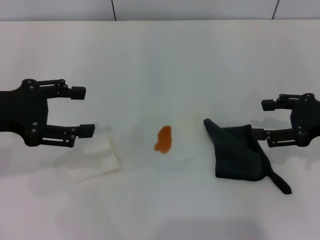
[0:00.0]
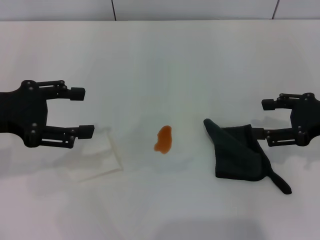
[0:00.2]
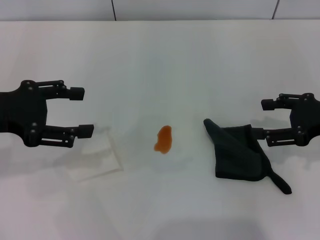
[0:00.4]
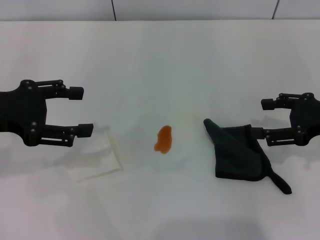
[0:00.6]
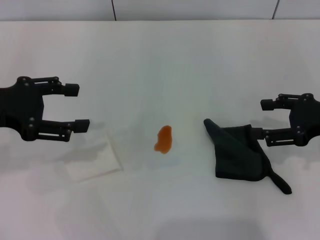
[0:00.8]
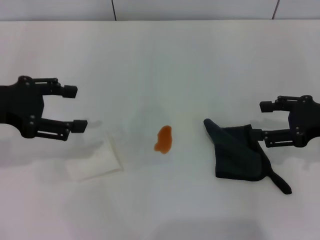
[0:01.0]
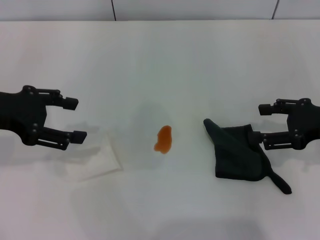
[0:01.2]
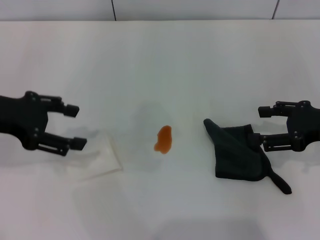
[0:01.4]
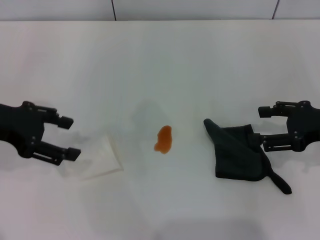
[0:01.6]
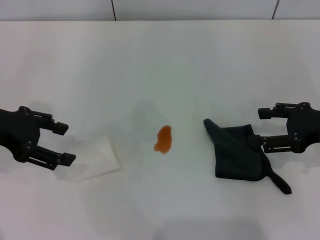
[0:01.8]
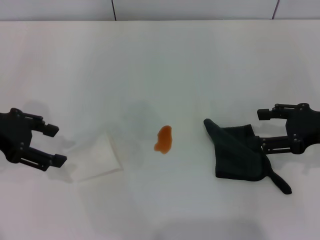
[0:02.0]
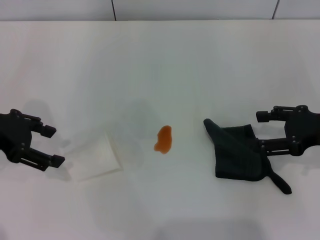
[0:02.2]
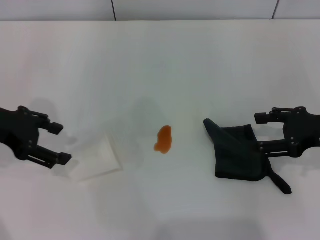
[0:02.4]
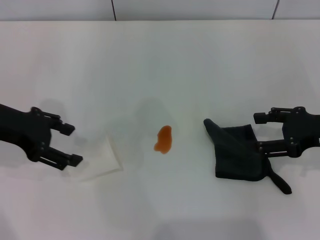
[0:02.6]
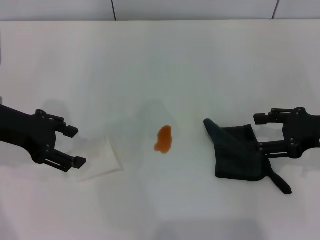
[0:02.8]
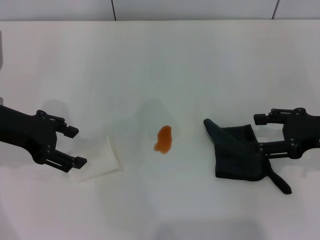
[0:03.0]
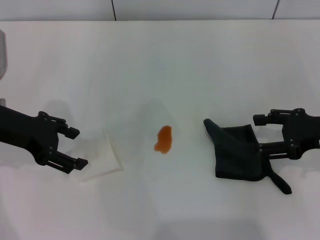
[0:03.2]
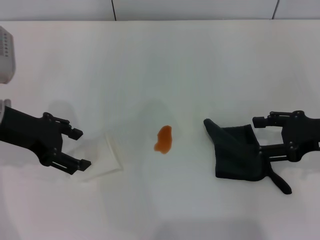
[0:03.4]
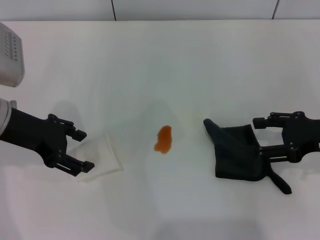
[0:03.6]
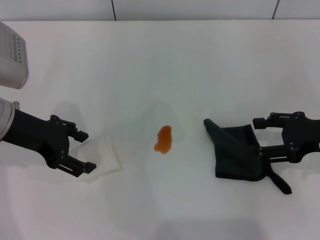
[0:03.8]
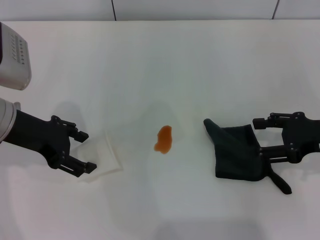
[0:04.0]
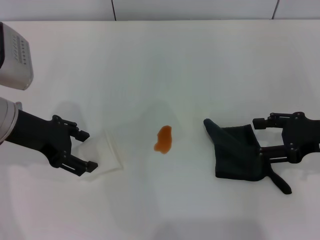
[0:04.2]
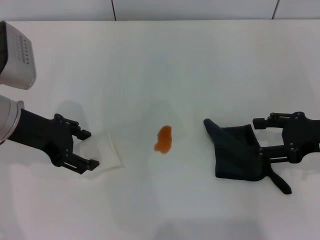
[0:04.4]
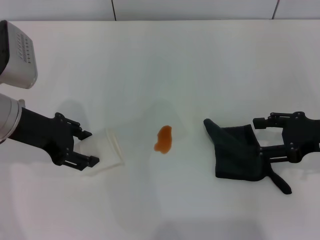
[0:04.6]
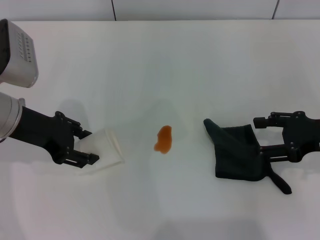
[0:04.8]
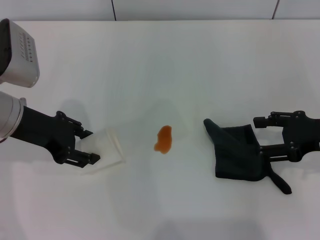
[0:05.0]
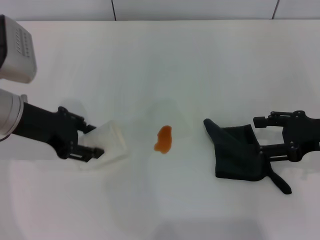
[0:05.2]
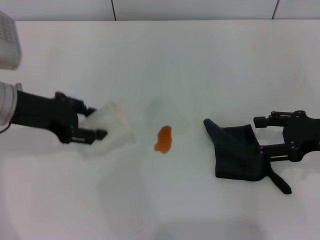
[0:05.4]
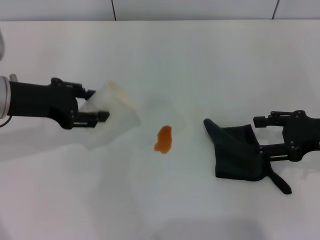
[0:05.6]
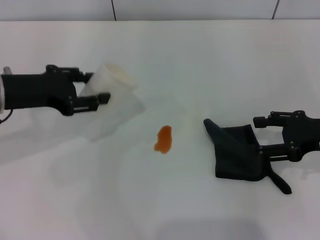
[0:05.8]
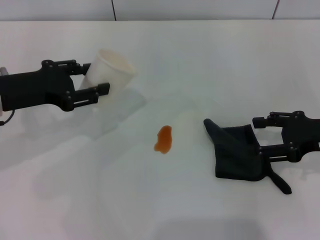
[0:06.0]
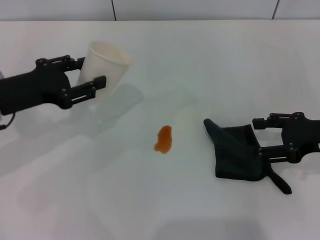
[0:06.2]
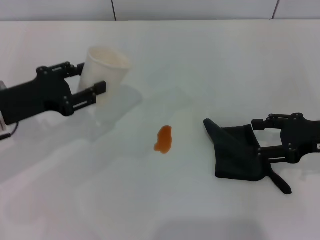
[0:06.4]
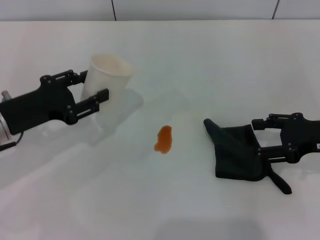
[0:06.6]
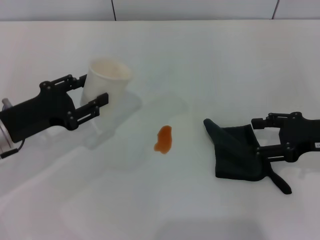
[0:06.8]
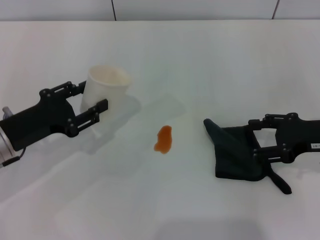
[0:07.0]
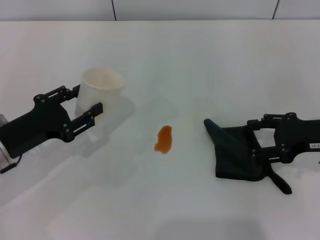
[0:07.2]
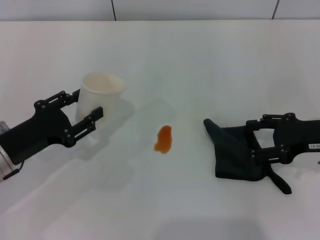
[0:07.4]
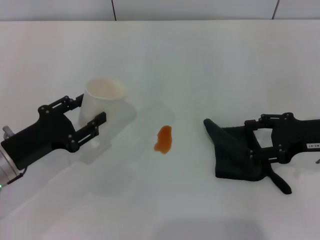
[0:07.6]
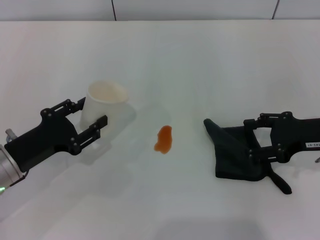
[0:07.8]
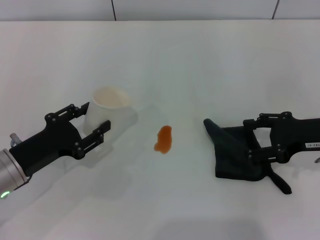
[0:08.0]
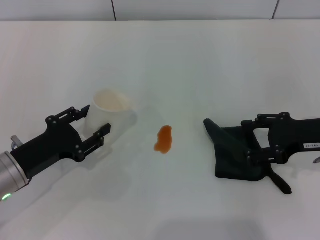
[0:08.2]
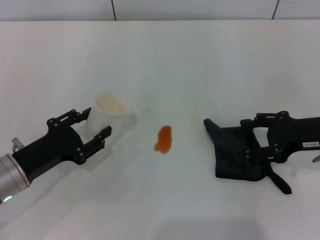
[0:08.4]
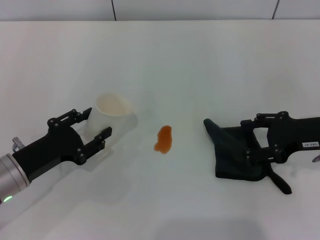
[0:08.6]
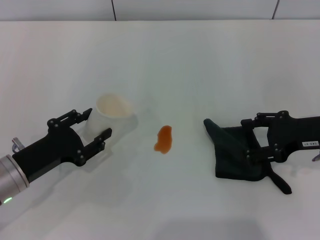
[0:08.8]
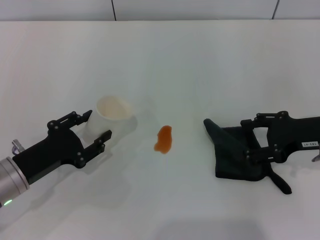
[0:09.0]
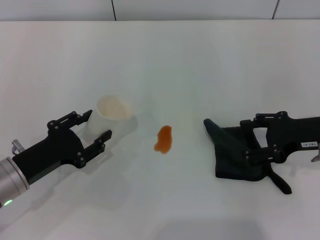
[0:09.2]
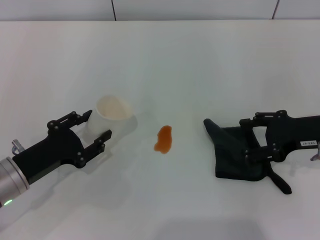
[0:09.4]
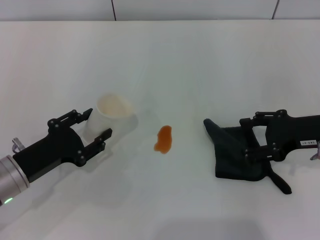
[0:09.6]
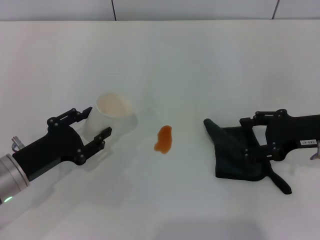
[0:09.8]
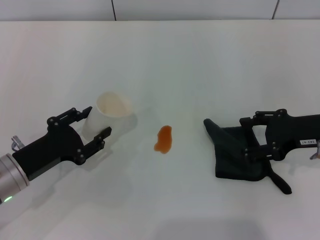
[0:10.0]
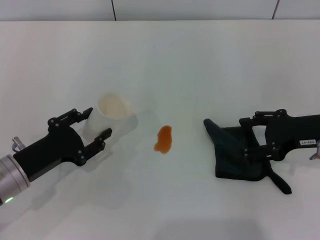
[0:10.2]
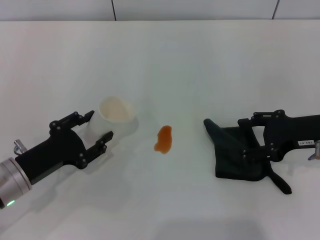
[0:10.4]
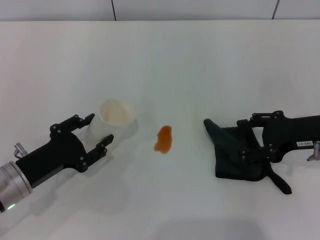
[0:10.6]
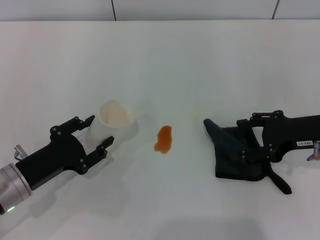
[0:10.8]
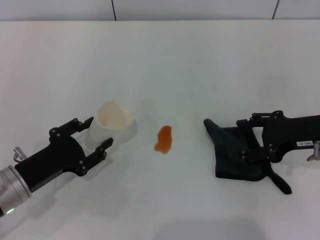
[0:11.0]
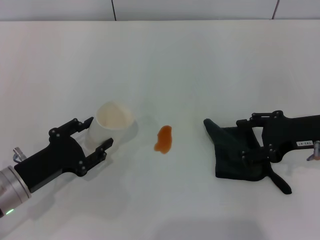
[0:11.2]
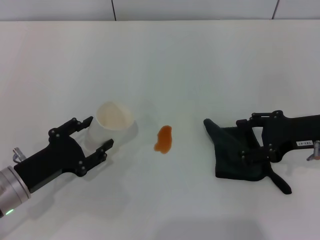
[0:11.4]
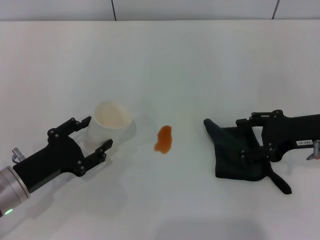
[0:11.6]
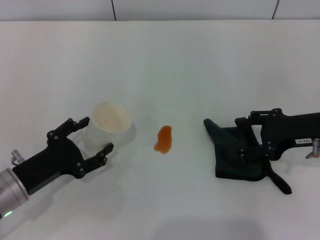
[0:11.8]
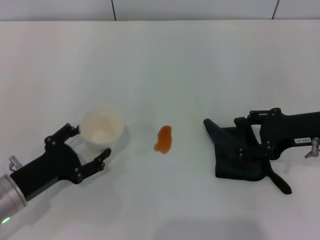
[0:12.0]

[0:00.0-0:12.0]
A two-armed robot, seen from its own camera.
Step, 0:00.0 to 0:04.4: Grasp the paper cup with the left gripper.
0:01.6 to 0:04.4: There are only small adjustments of the grippers.
0:04.4 to 0:06.0: The left gripper closes.
0:06.0 to 0:07.6: The left gripper goes some 10 cm downward and backward.
0:07.6 to 0:09.0: There are only small adjustments of the grippers.
0:09.0 to 0:10.4: Both grippers stay put.
0:10.4 to 0:12.0: The left gripper opens up.

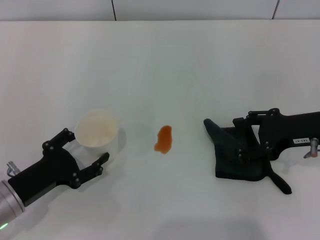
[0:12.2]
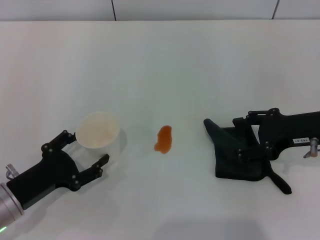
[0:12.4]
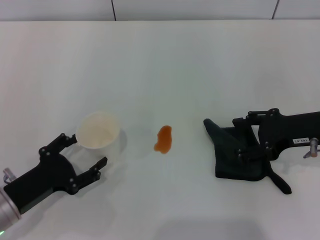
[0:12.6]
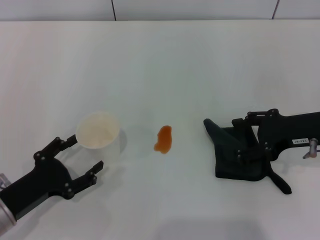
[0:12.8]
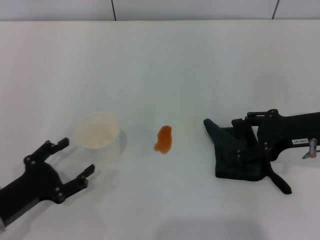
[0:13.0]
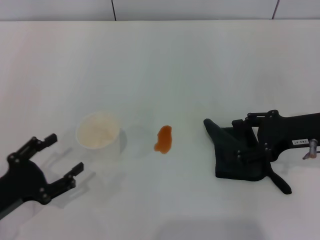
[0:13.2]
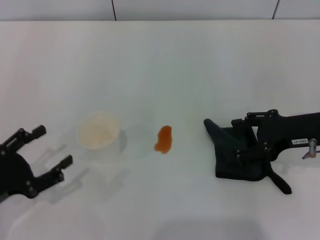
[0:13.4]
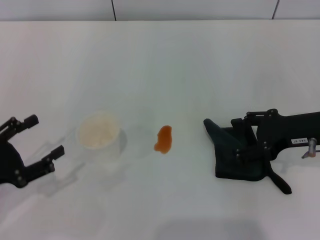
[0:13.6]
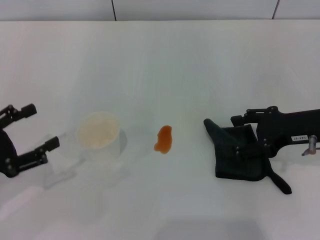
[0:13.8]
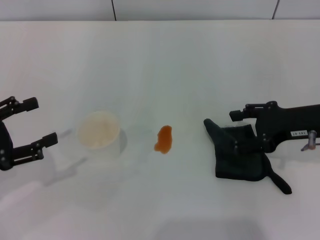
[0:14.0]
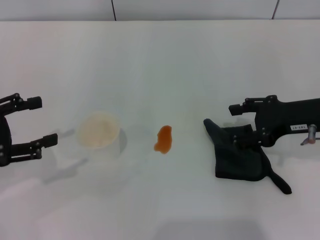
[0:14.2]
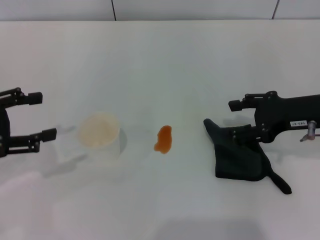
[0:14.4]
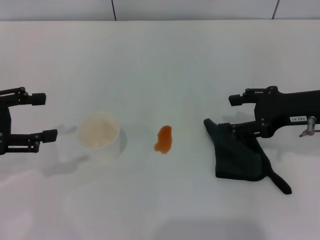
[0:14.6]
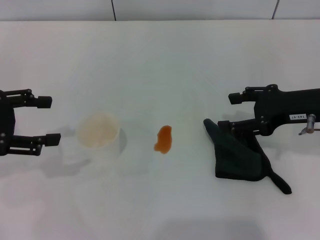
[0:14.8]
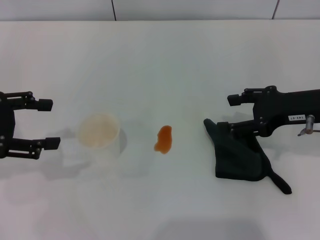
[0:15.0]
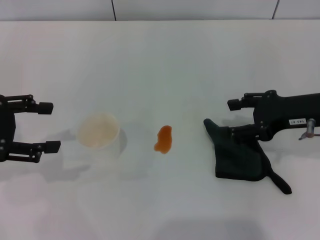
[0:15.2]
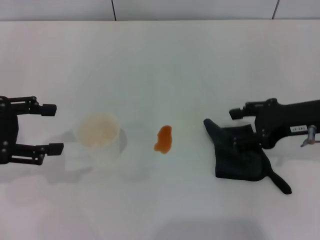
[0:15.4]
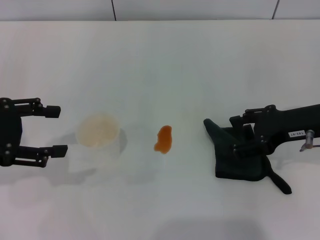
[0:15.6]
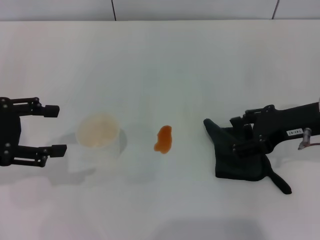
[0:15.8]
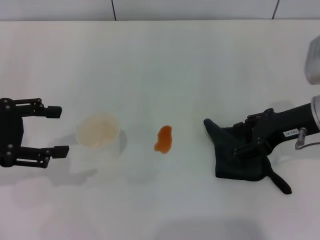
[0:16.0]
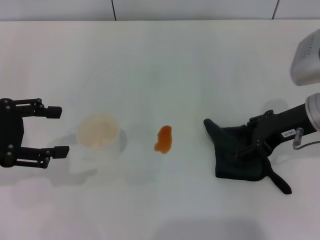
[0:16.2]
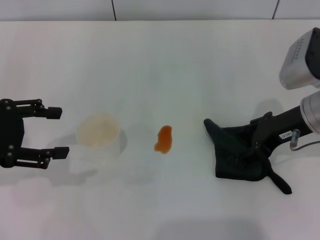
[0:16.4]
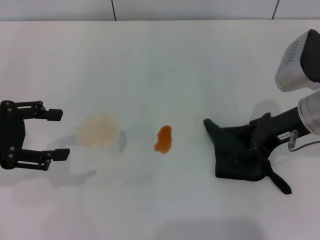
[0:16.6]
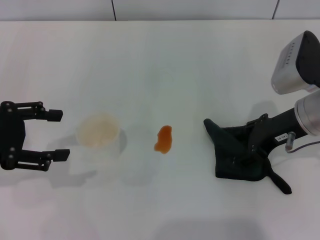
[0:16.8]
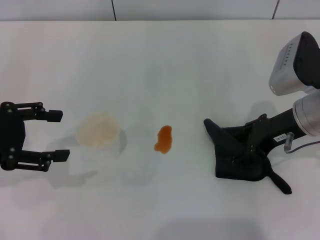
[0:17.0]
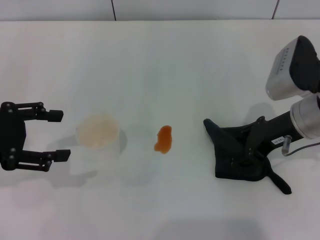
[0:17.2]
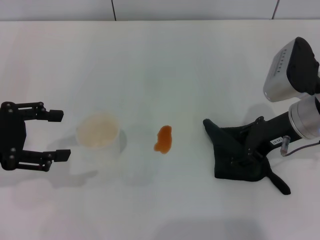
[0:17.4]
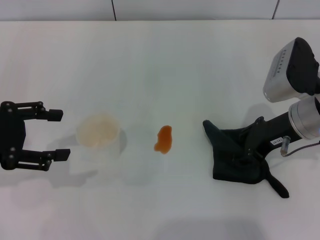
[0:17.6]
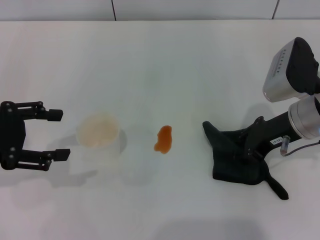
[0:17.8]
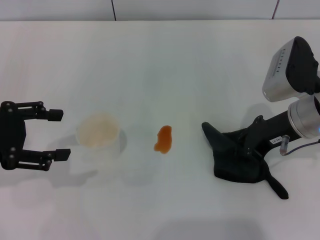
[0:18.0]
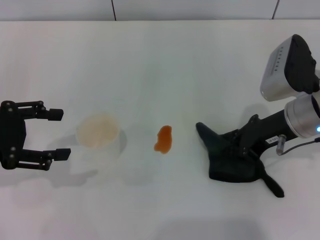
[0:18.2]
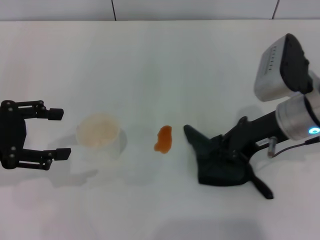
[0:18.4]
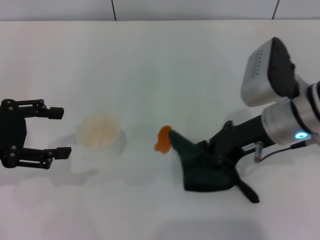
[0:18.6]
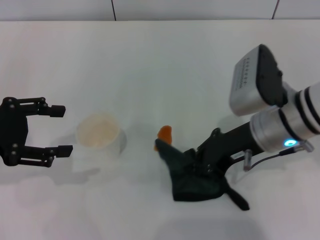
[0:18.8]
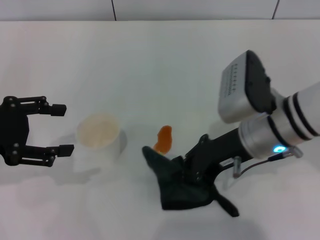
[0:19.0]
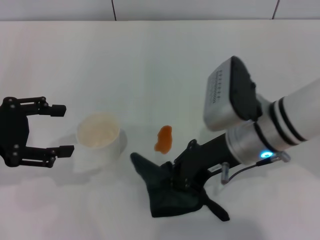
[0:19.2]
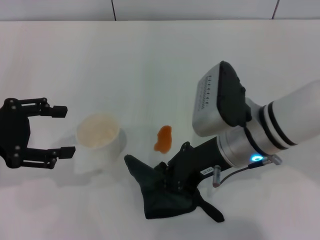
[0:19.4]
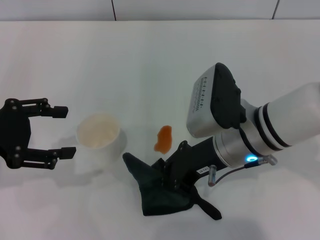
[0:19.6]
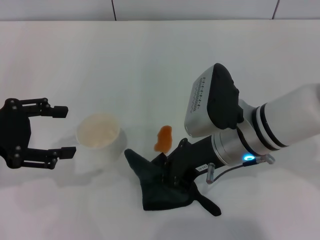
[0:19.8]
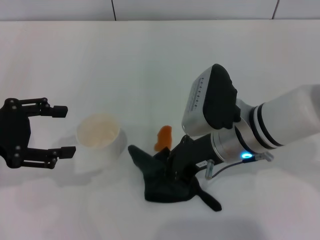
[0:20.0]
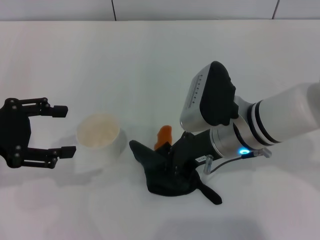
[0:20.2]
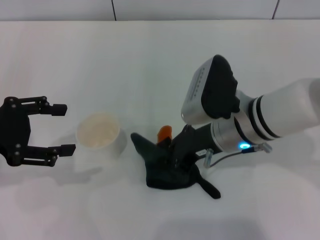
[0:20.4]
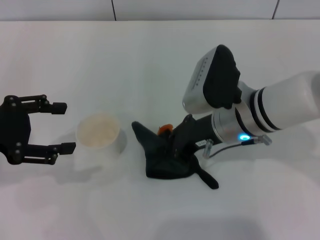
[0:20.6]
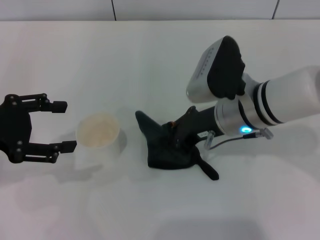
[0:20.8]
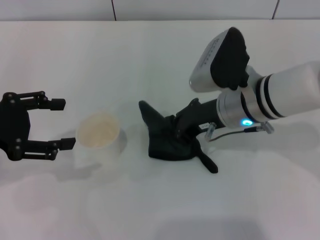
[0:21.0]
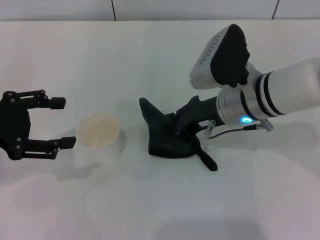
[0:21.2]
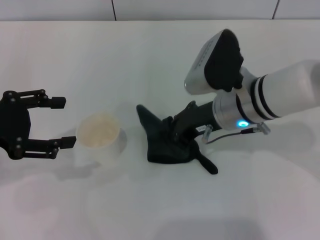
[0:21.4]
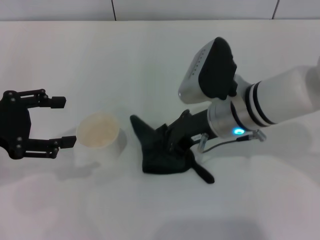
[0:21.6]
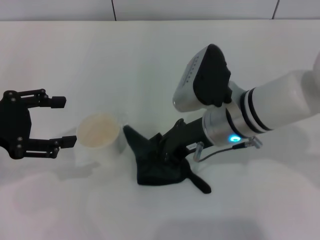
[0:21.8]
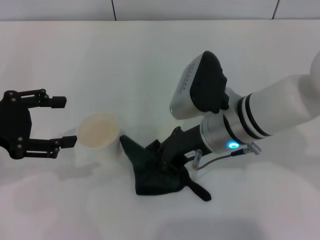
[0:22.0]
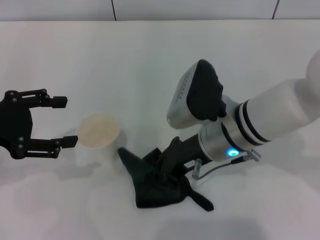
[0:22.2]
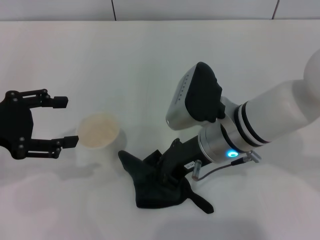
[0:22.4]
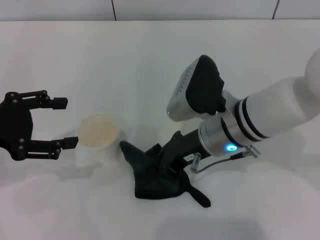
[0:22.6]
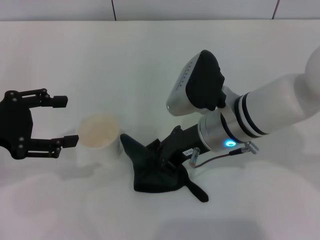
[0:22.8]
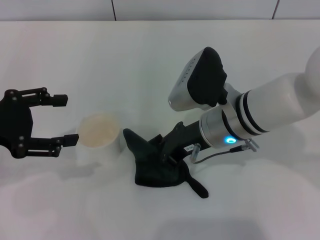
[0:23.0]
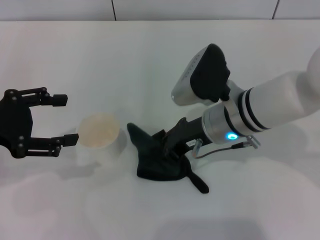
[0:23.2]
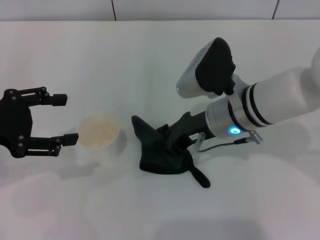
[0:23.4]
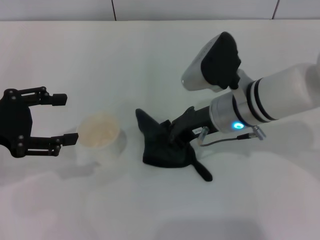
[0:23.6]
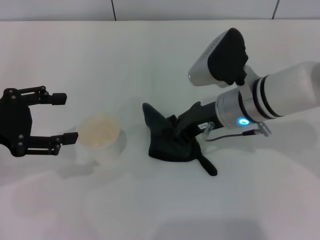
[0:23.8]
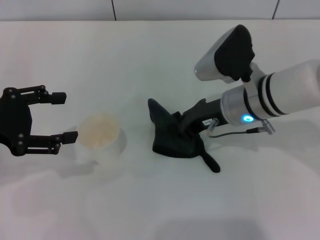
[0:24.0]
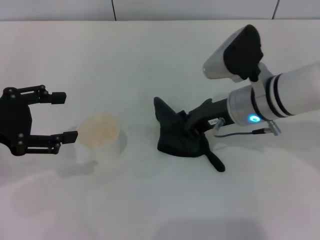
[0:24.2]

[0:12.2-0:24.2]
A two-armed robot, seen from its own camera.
Step, 0:13.0 to 0:18.0: Grasp the rag with the right gripper.
Step, 0:18.2 to 0:24.2: Wipe the stains off the table with the right gripper.
0:12.2 to 0:13.8: The left gripper shifts roughly 10 cm upward and to the left.
0:13.8 to 0:15.2: The left gripper is displaced upward and forward by about 10 cm.
0:16.6 to 0:18.2: The right gripper closes.
0:18.2 to 0:19.8: The right gripper shifts some 10 cm to the left.
0:21.2 to 0:22.6: The grippers stay close to where they were, moving slightly.
0:22.6 to 0:24.2: The right gripper shifts by about 5 cm.
